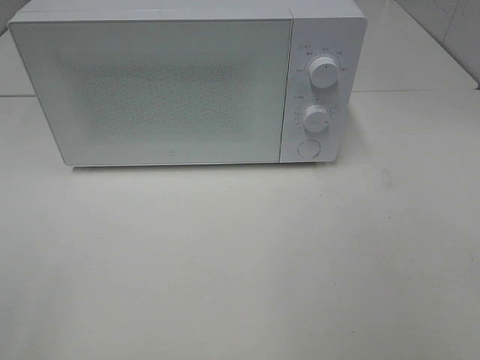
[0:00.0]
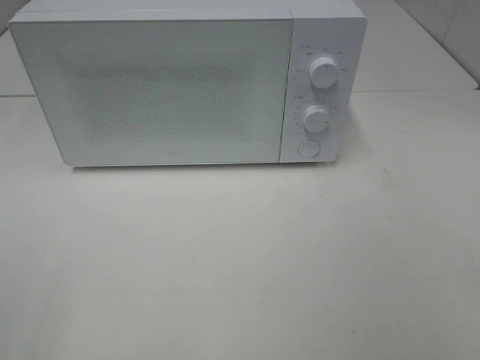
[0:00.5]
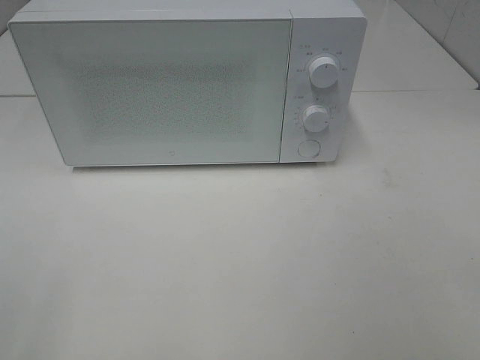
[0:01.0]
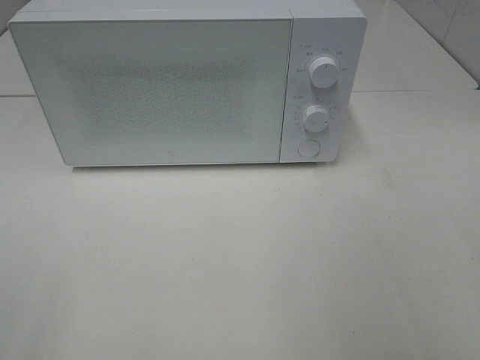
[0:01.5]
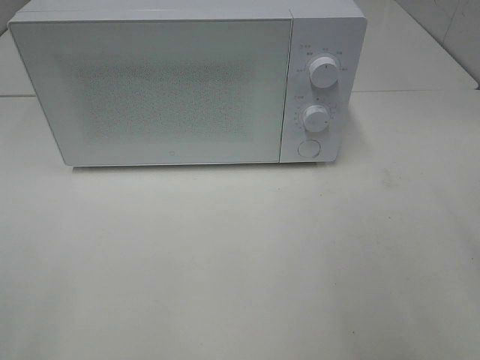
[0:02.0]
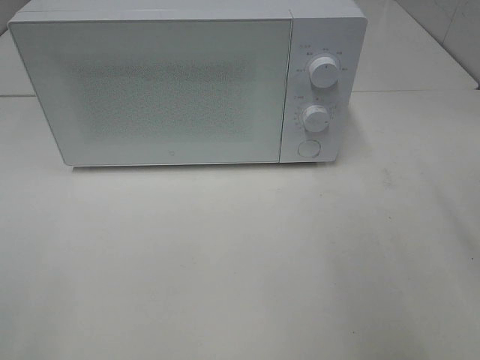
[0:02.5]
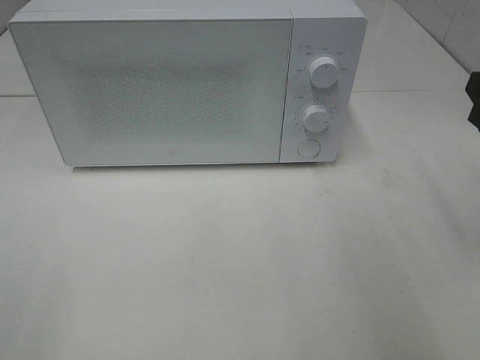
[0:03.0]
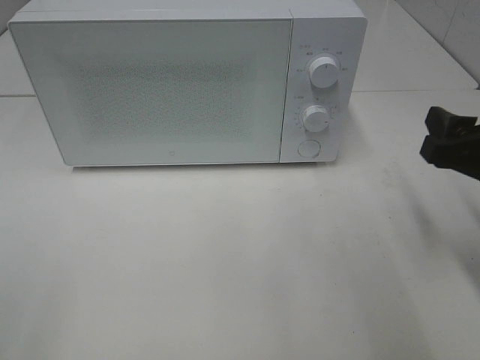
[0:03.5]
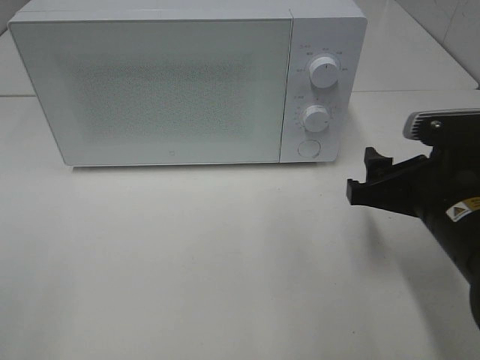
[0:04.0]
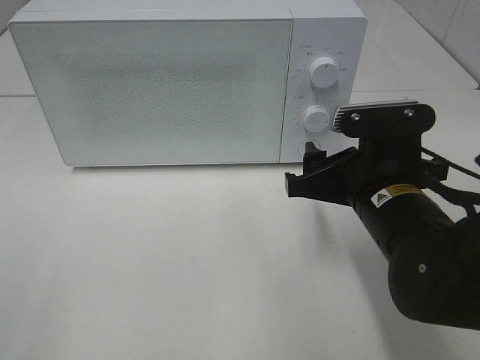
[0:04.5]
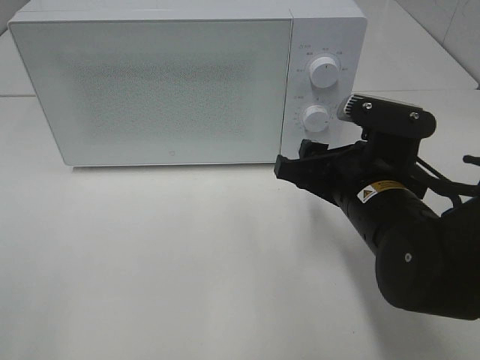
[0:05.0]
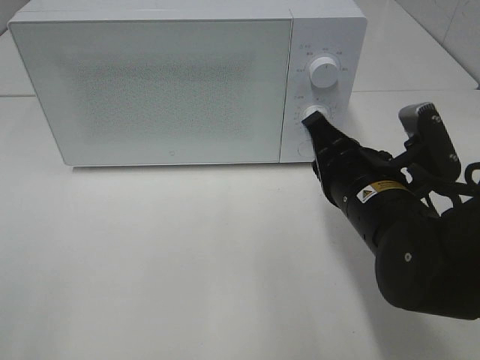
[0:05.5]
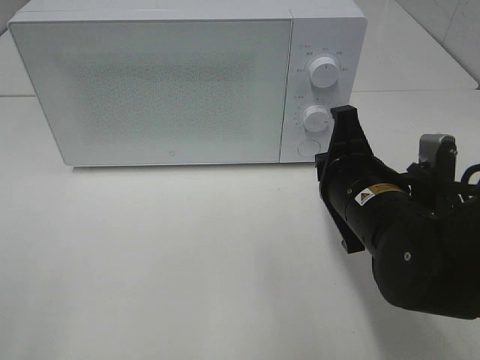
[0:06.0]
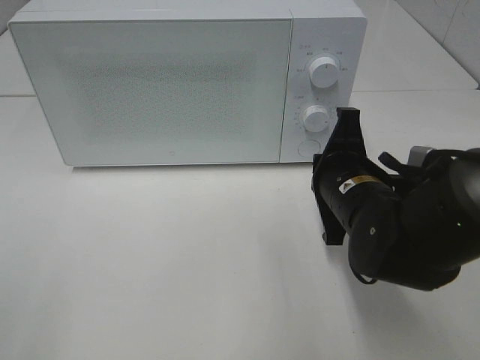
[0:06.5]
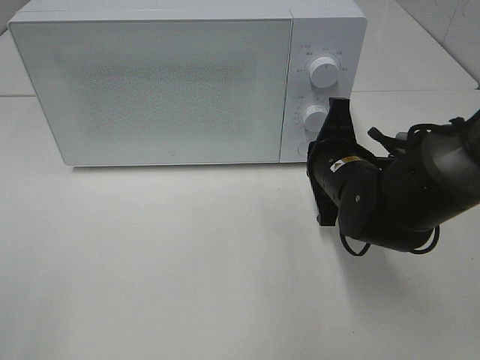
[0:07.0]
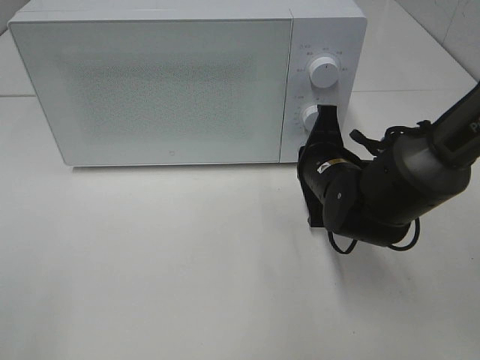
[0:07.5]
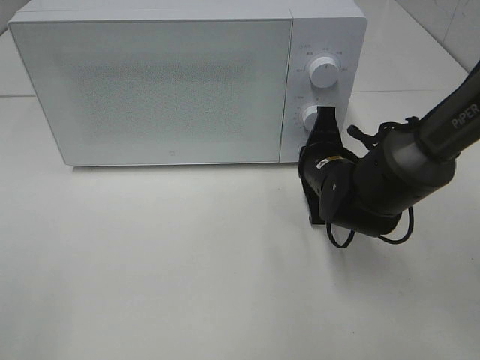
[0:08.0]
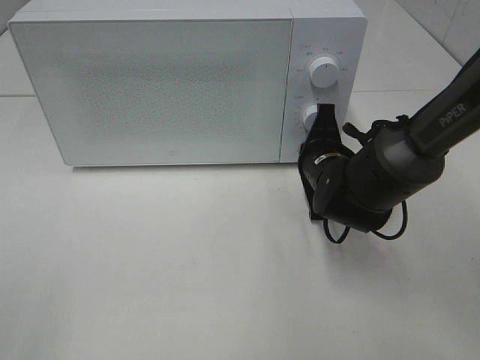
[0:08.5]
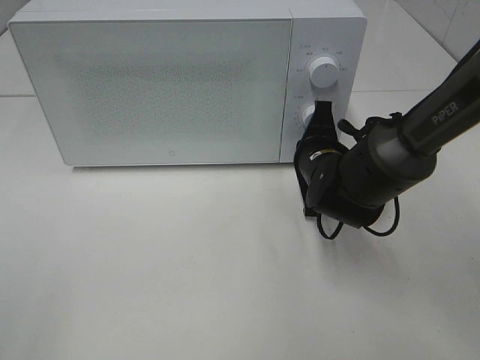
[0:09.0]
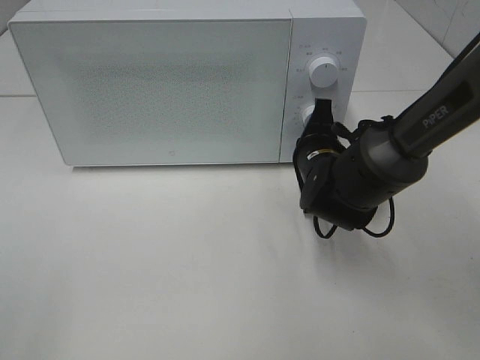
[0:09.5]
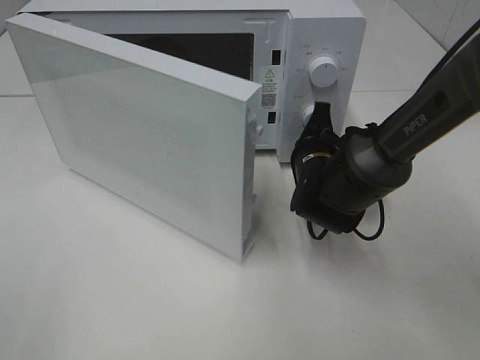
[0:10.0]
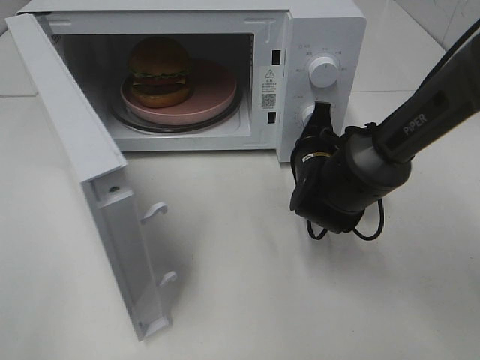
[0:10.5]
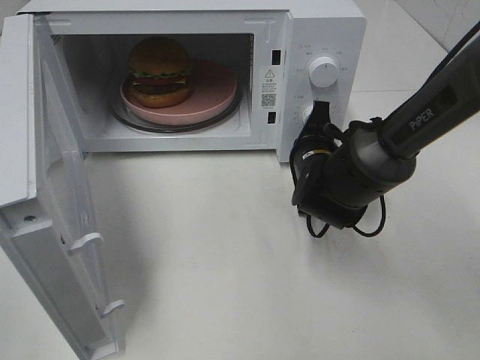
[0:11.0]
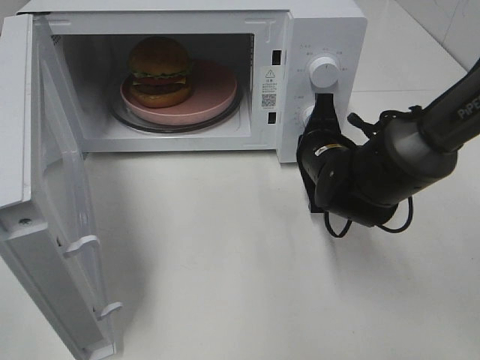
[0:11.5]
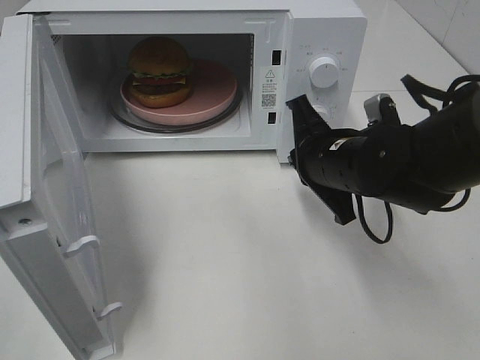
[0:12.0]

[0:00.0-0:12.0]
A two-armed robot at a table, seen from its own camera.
Task of the whole recording: Heat the burger.
Step, 0.0 to 11.5 s: Right hand: press the switch.
2.0 to 4.0 s: The right gripper moves downward, to the left and forward, about 20 cm.
4.0 to 6.0 s: The right gripper heads to the left, covering roughly 5 cm, and closes.
6.0 to 8.0 s: The right gripper is displaced forward and downward by about 10 cm.
10.0 to 12.0 s: The right gripper heads upward and backward, covering some 10 cm.

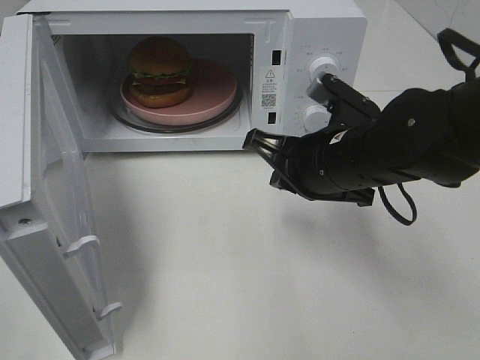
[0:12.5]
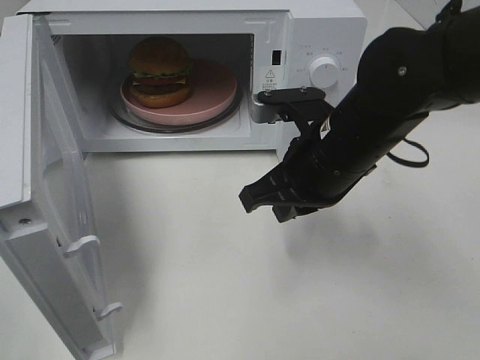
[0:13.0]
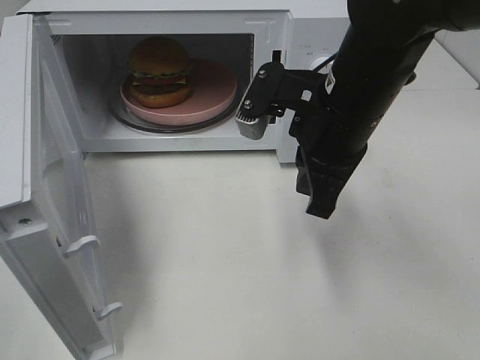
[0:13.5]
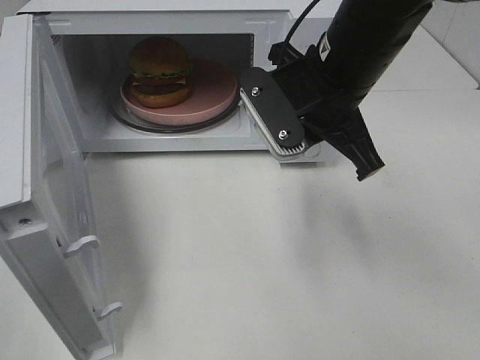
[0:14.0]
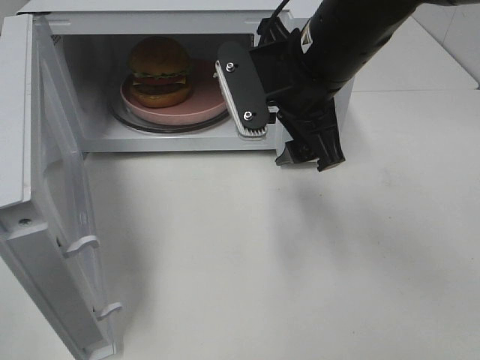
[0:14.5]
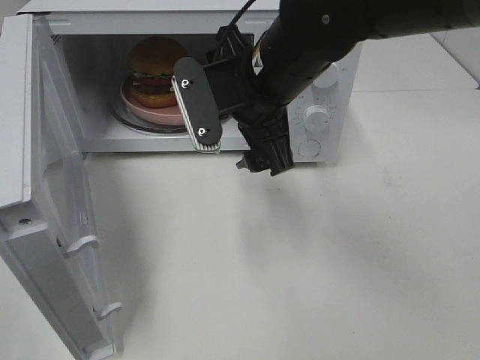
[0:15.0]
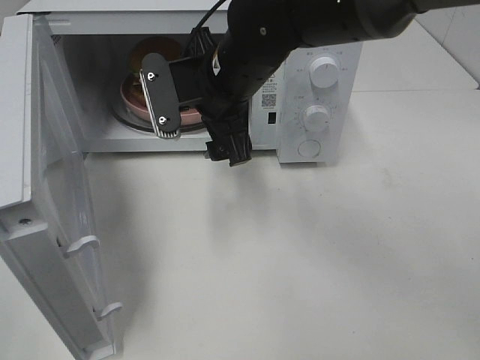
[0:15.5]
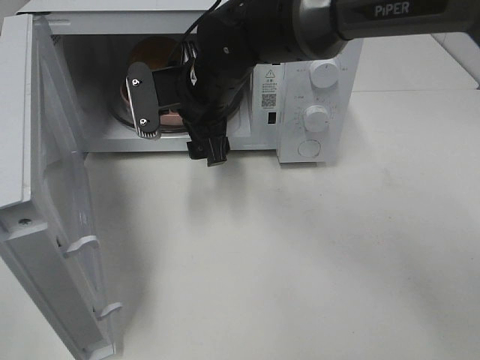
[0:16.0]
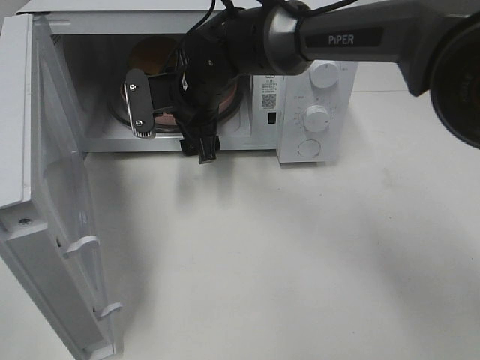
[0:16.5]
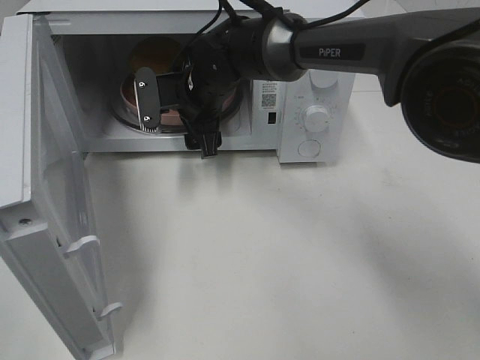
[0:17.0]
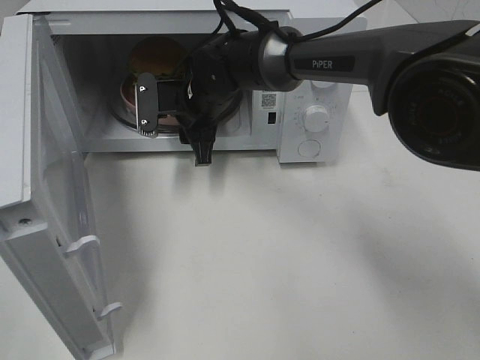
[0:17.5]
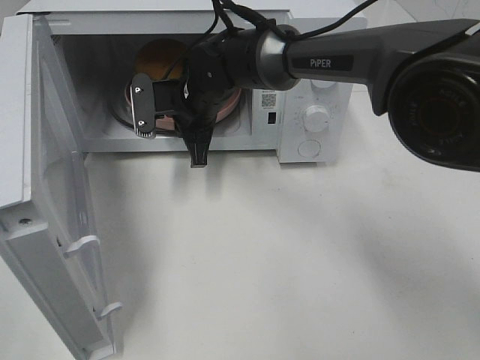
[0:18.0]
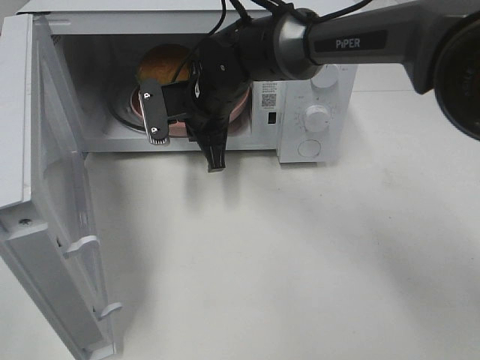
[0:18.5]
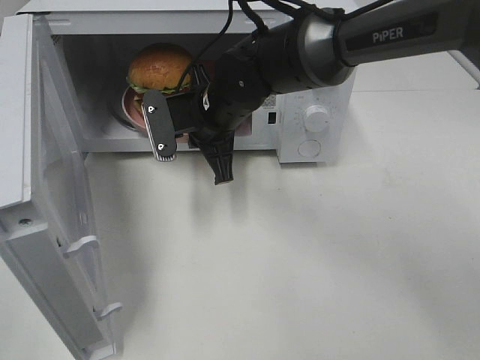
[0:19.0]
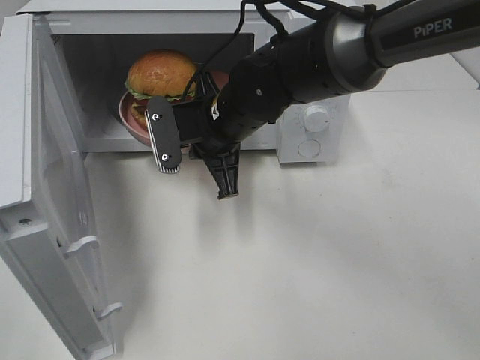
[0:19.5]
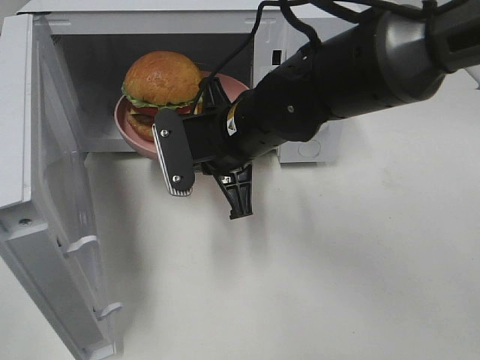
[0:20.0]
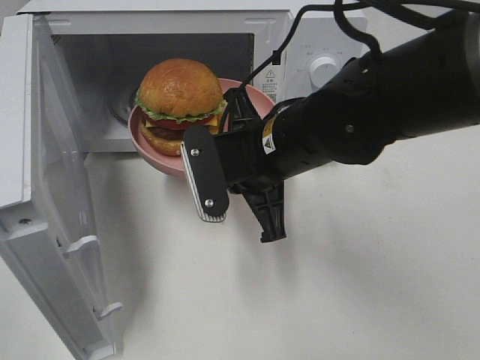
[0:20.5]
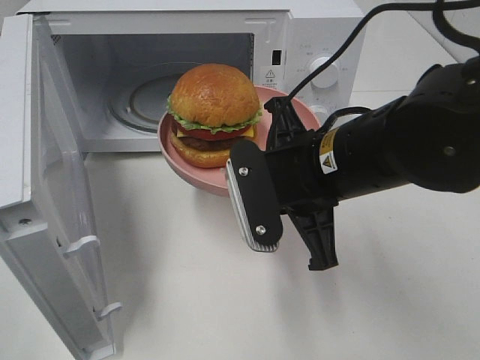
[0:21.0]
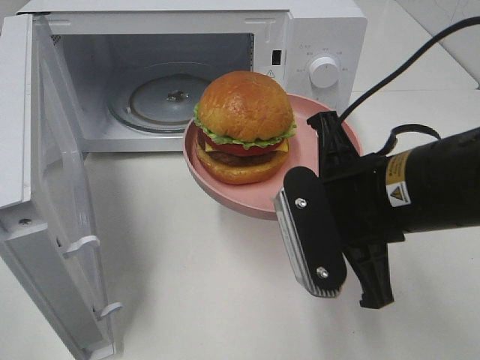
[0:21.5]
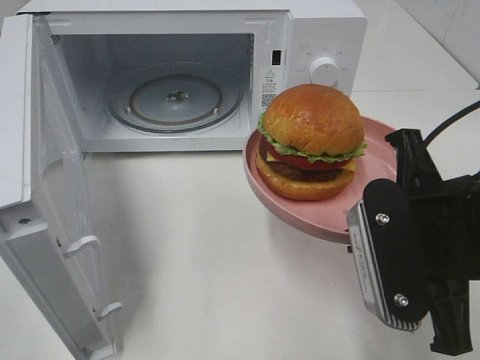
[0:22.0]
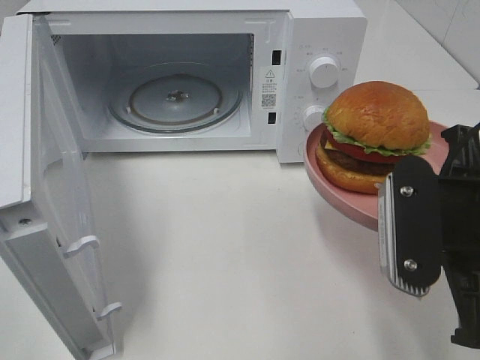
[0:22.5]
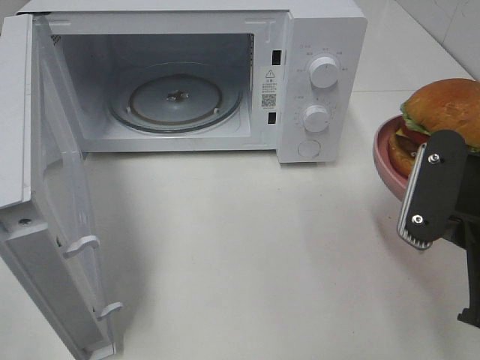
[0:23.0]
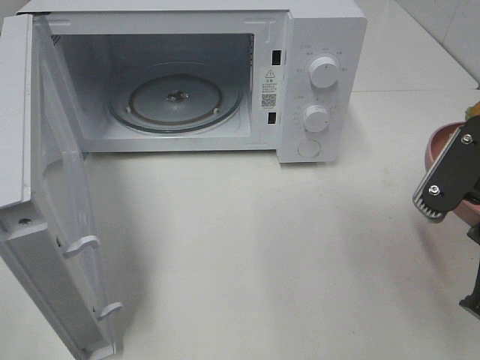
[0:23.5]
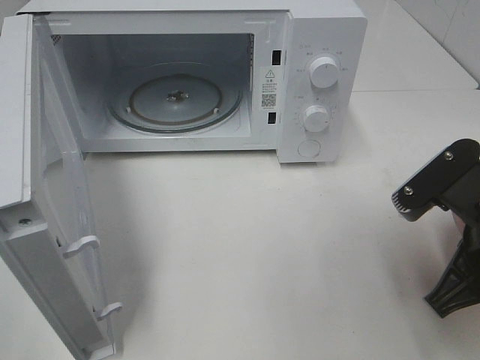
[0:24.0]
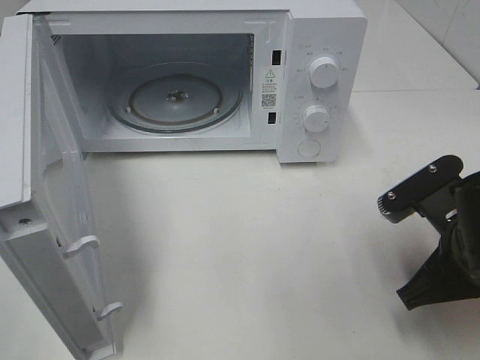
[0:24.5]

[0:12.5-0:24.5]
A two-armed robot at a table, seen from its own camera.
Task of the whole recording: Heat the burger.
Step, 12.5 to 17.5 s: Right hand: grab the plate with the hamburger.
12.5 to 14.5 s: The right gripper is displaced upward by approximately 10 cm, and opens.
14.5 to 16.5 s: The right gripper is displaced to the left, forward and downward by approximately 20 cm.
16.5 to 18.5 s: The right gripper closes up.
18.5 to 20.5 s: The right gripper travels backward and to the right by some 15 cm.
20.5 to 22.5 s: The right gripper shifts roughly 20 cm to the right and backward.
22.5 to 24.5 s: The right gripper is displaced downward by some 10 cm.

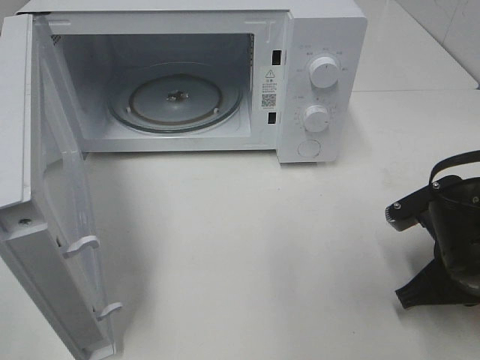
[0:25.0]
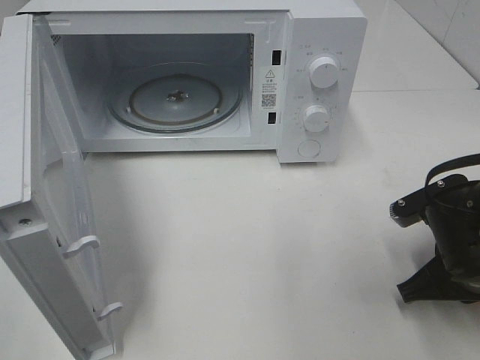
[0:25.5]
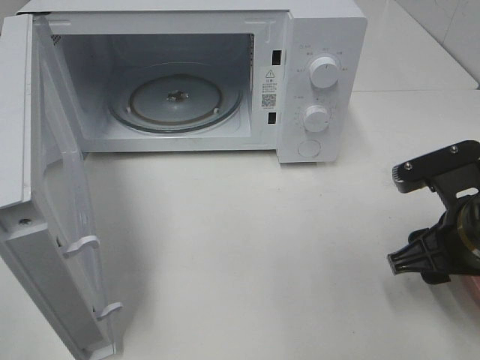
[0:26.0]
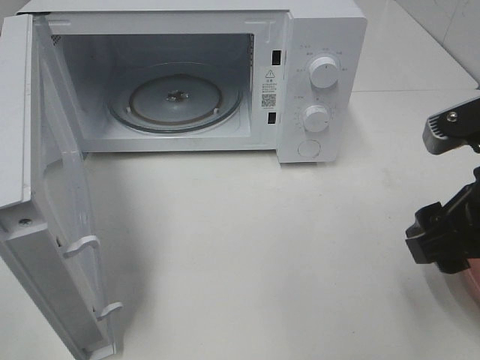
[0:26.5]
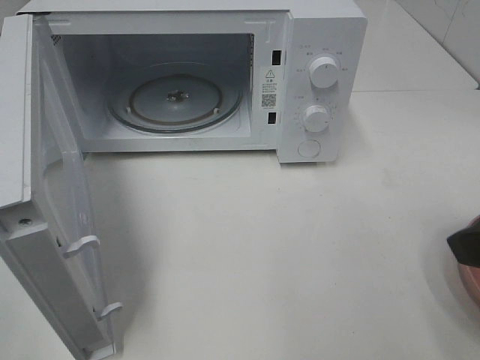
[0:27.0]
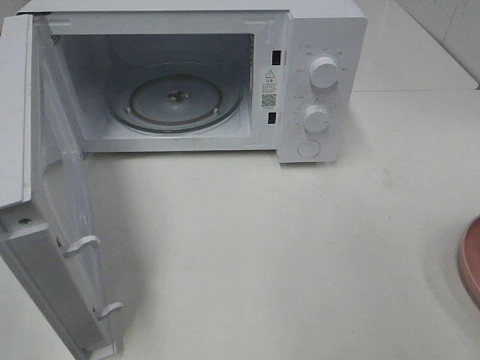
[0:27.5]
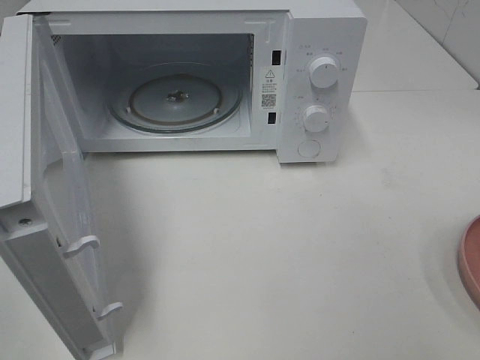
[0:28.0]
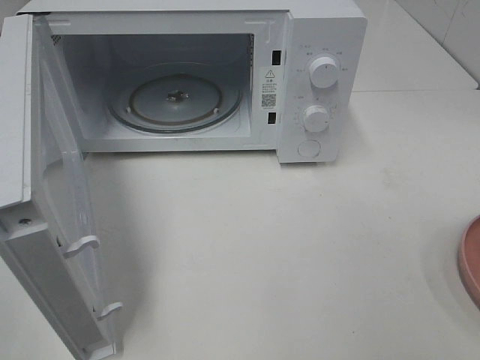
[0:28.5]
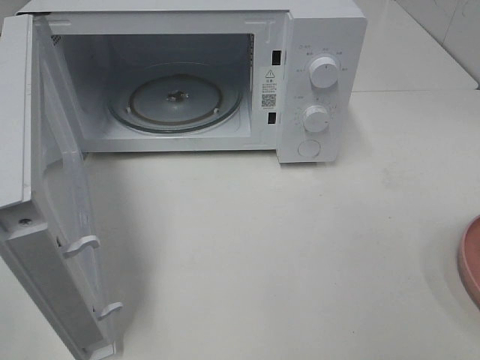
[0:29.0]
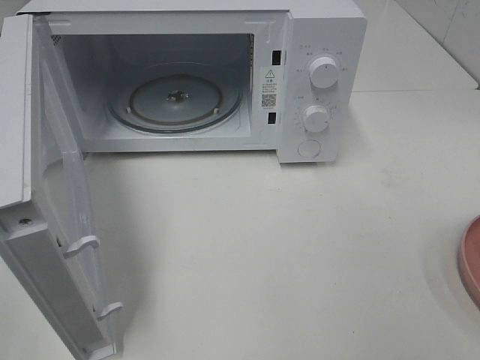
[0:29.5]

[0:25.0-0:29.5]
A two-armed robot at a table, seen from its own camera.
Task of the whole recording: Heat the burger.
25.0 to 27.0 s: The right gripper goes approximately 20 cm upward and backward, and opens up.
27.0 to 29.5 s: The right gripper goes roughly 15 cm backward and to the right.
